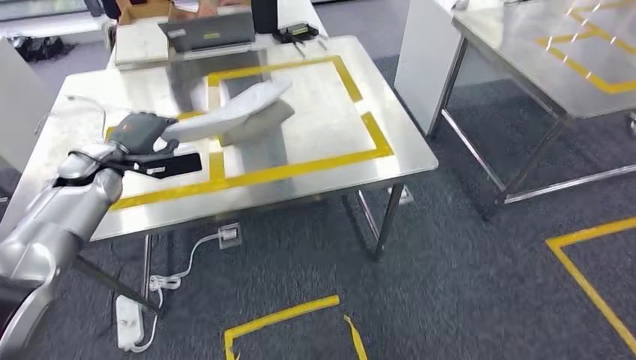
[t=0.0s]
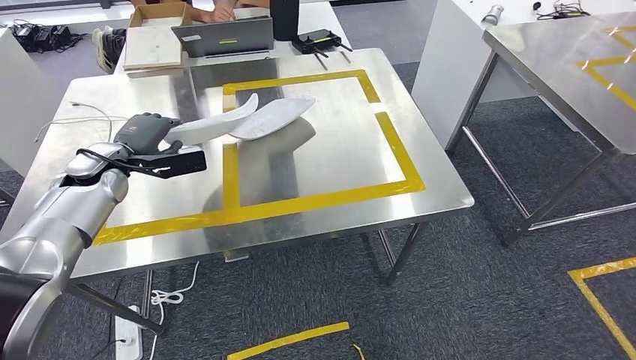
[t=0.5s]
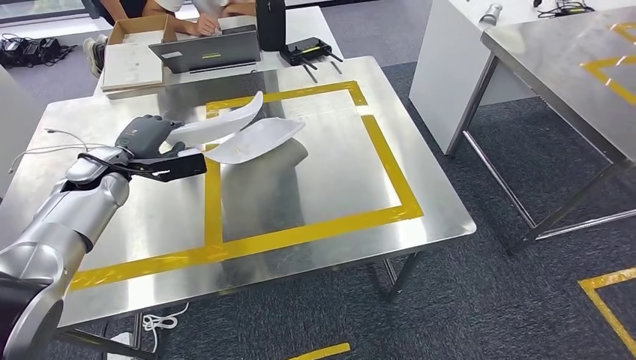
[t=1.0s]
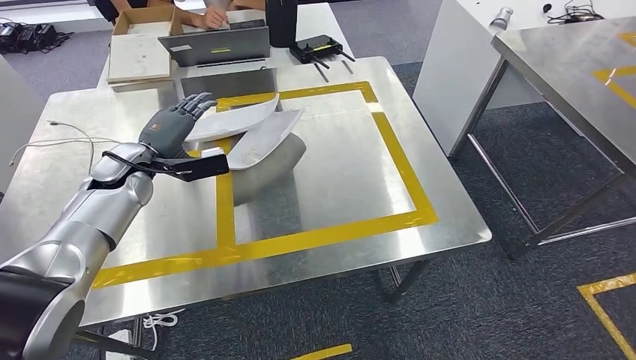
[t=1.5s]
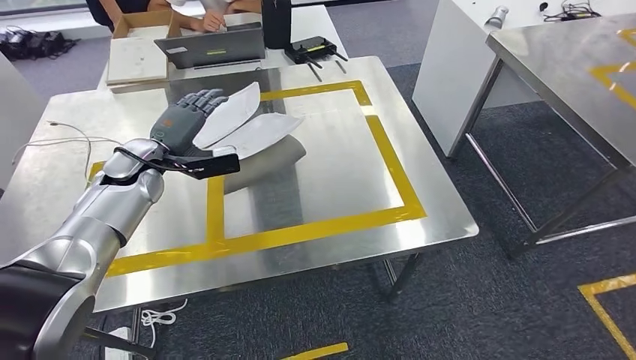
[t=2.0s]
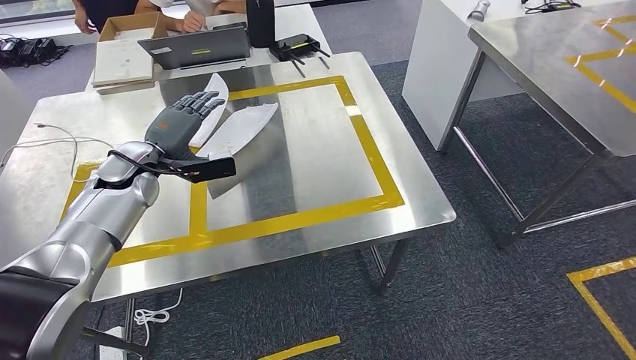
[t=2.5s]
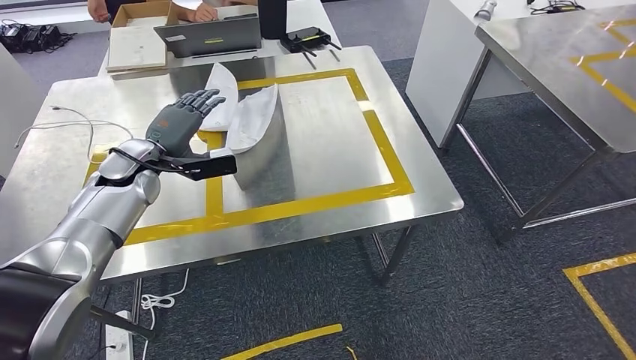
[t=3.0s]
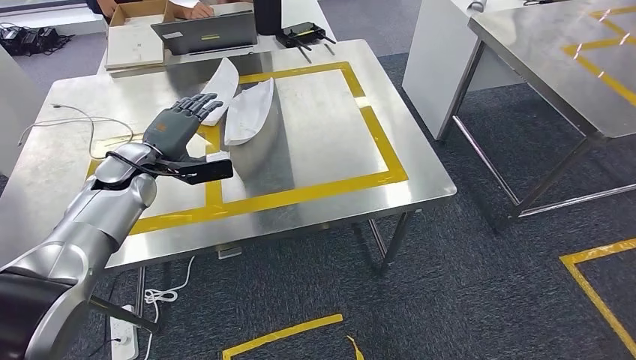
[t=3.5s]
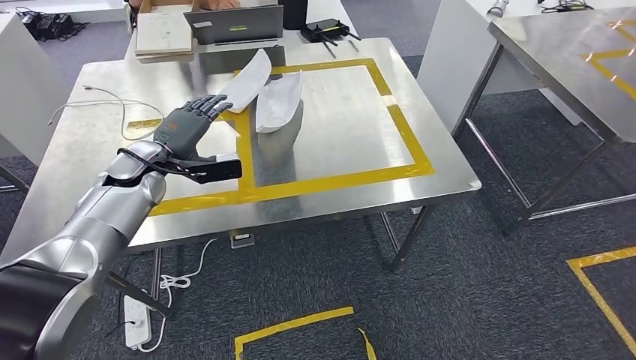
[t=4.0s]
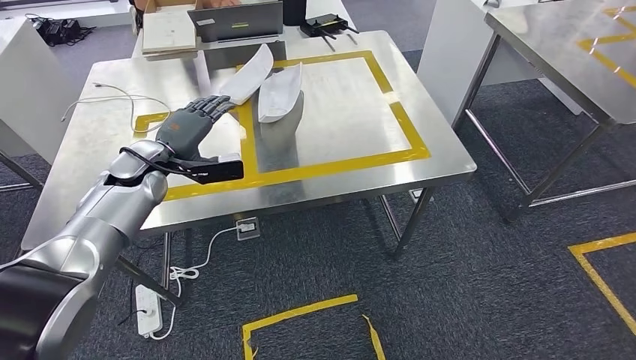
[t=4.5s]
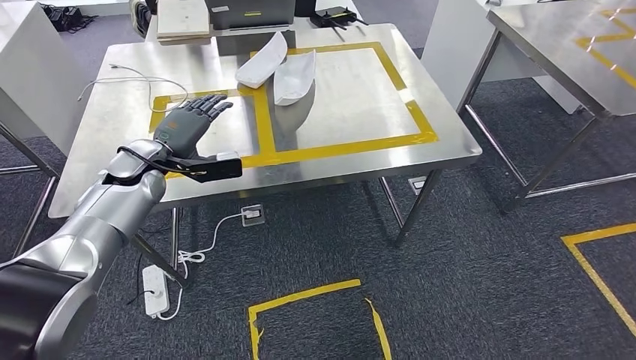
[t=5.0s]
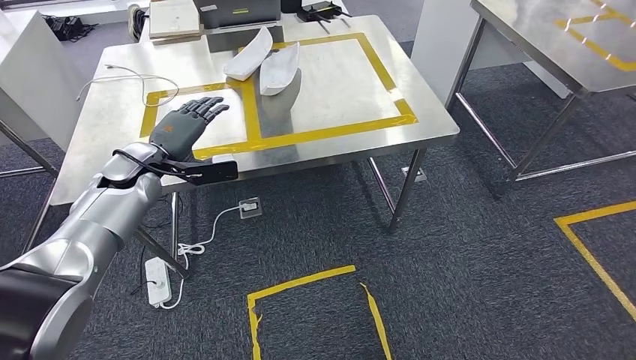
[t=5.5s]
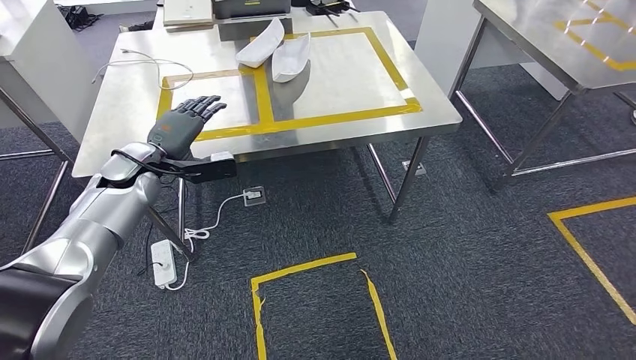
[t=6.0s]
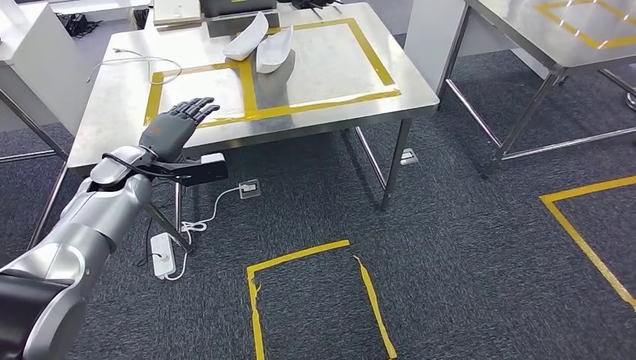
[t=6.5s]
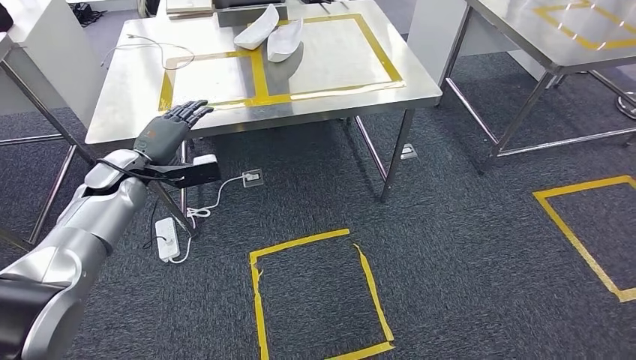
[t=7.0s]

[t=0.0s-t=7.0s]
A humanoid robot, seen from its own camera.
Step, t=0.0s to t=4.0s: Insert the small parts into the corresponding holes on the workbench.
Step, t=4.5s to t=7.0s: Move to the initial position at the workbench.
